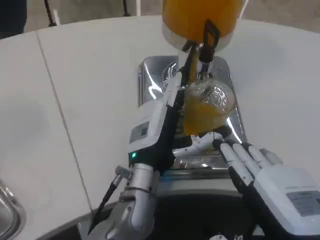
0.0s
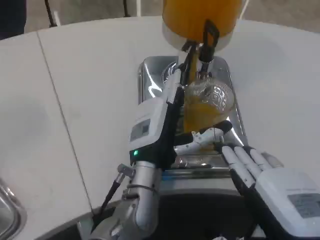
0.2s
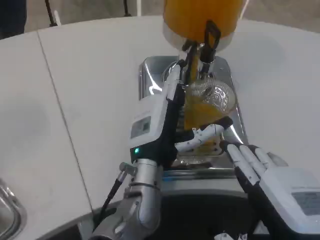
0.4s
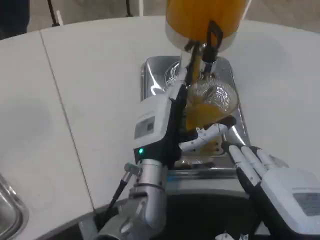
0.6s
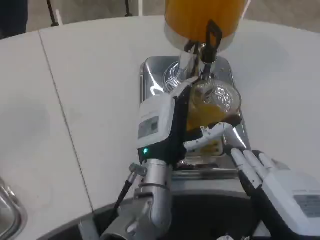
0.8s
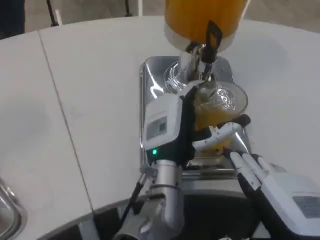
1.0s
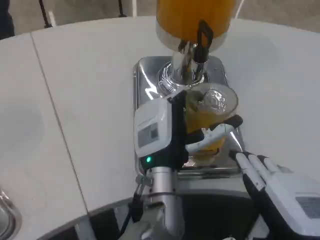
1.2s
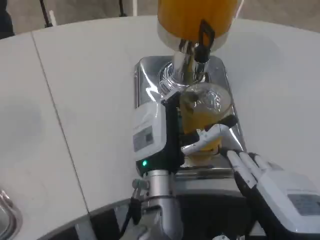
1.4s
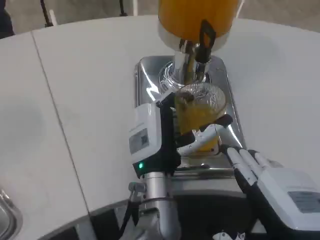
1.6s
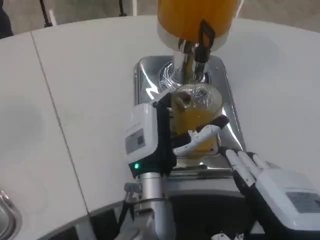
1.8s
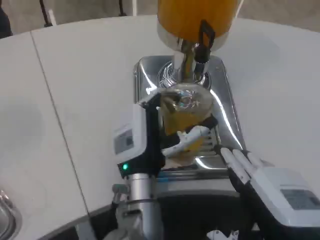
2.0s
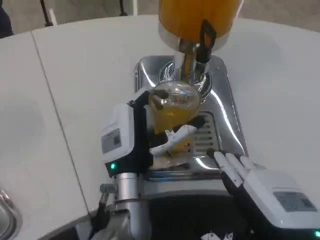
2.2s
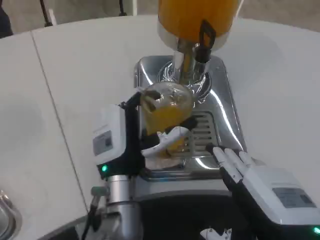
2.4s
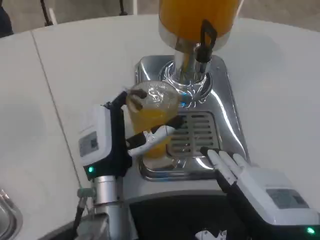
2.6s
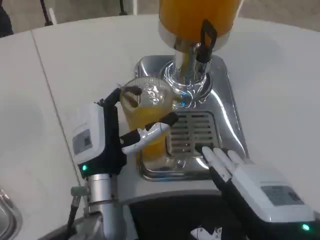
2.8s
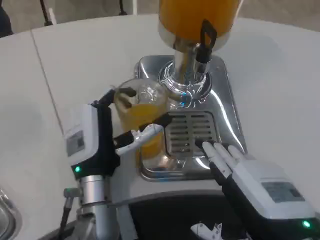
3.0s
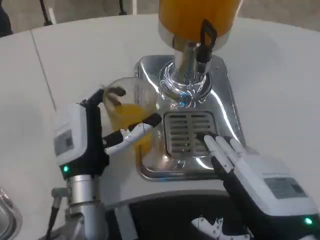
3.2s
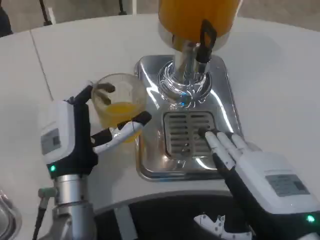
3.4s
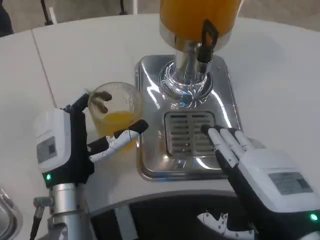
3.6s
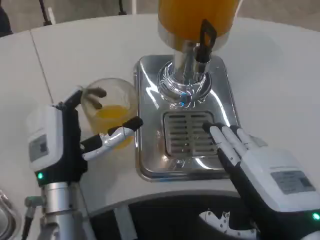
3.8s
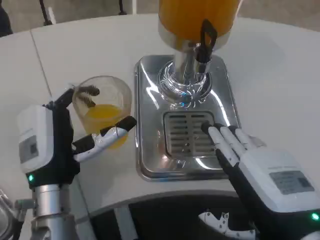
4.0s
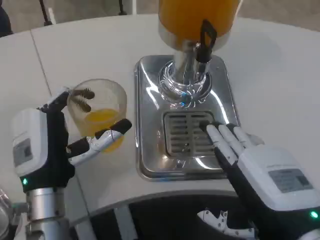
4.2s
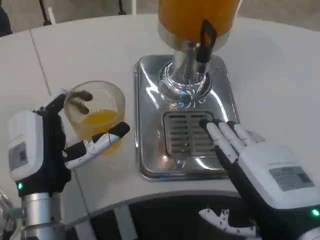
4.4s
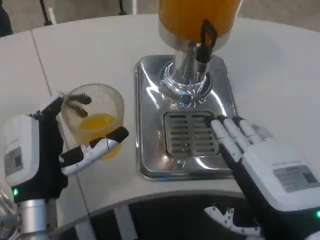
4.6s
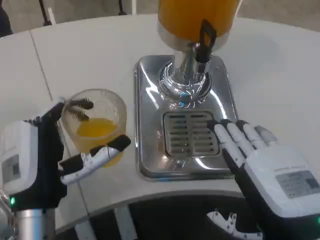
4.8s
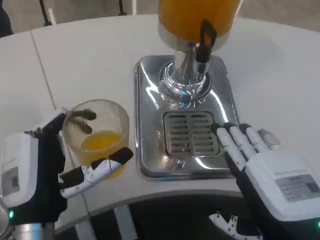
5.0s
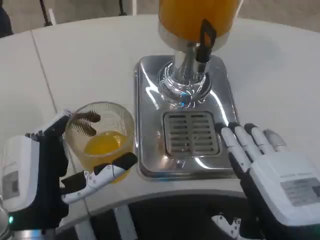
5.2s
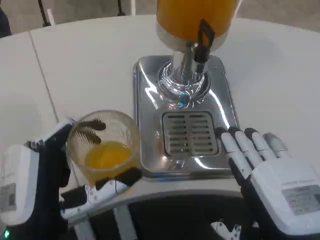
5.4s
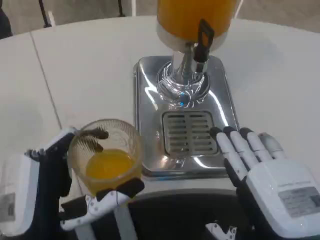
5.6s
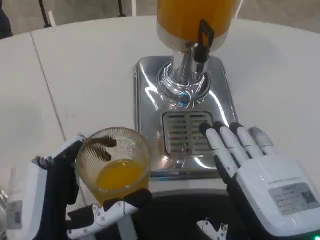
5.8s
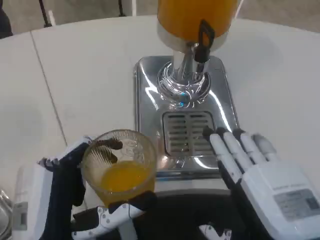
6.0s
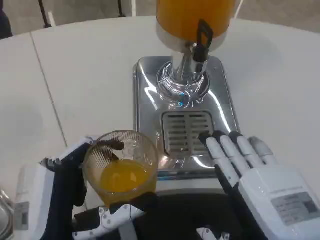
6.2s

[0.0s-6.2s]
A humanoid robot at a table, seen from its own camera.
Task of the whole recording: Grasp the cup under the faucet to collect the drink, then remove the cup.
0.0s to 1.6s: The hands stay close to where they were, moving slightly.
1.6s to 3.2s: The left hand shifts roughly 10 cm to the left.
3.2s to 4.6s: The left hand shifts about 5 cm backward.
4.6s to 6.2s: The left hand moves backward, some 10 cm.

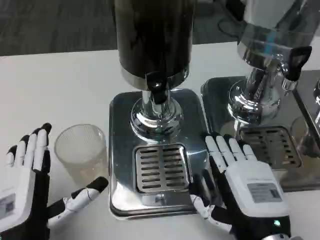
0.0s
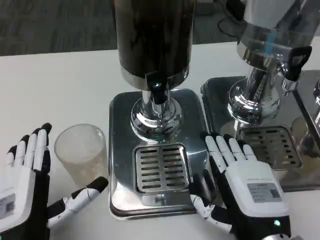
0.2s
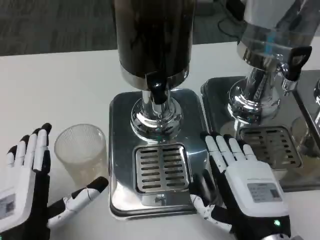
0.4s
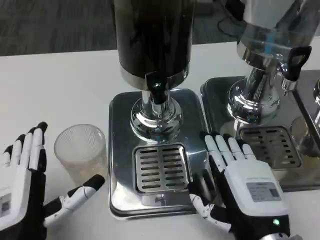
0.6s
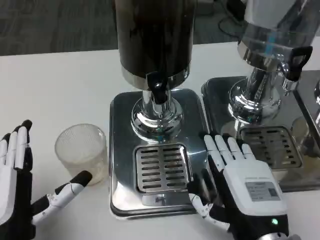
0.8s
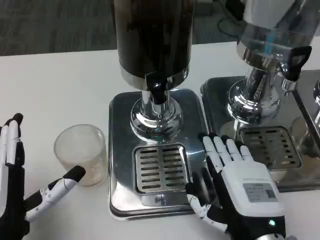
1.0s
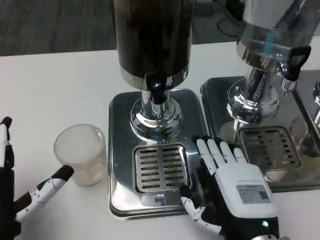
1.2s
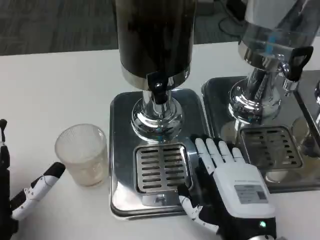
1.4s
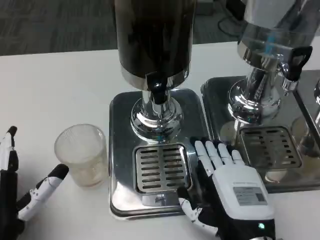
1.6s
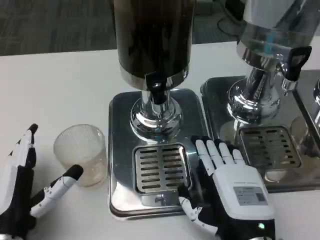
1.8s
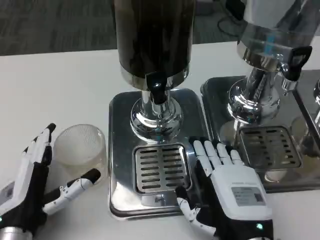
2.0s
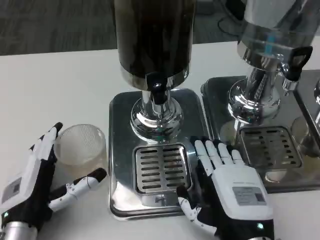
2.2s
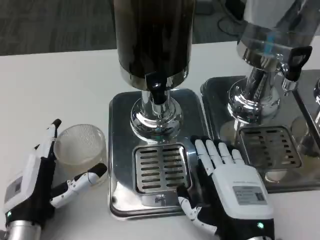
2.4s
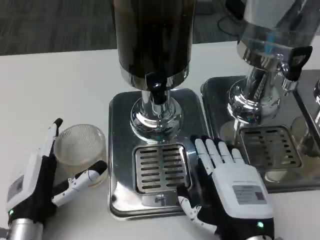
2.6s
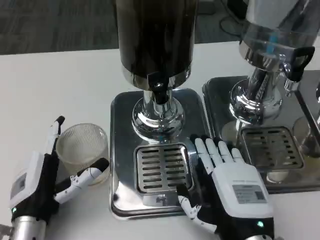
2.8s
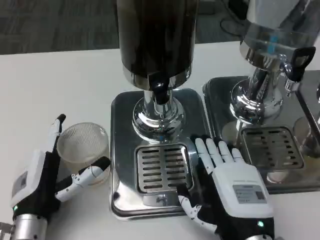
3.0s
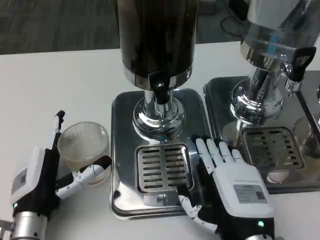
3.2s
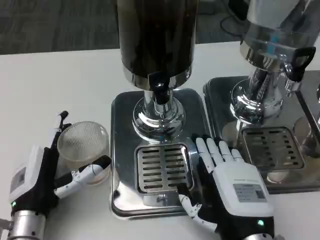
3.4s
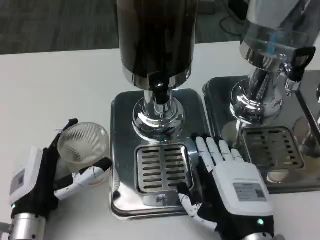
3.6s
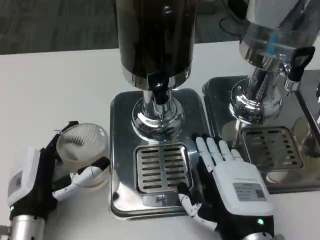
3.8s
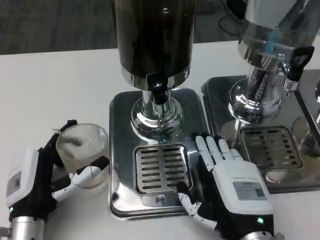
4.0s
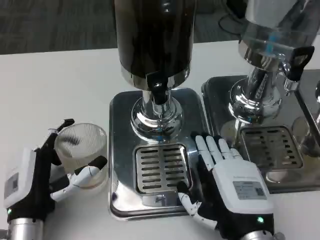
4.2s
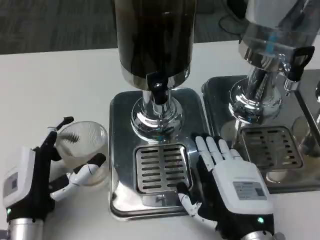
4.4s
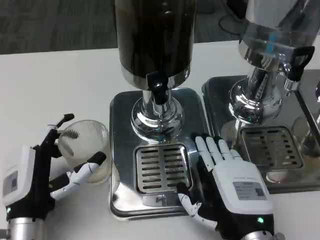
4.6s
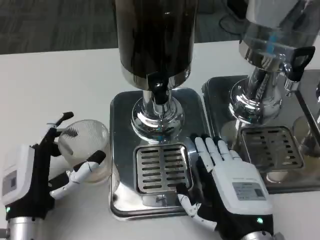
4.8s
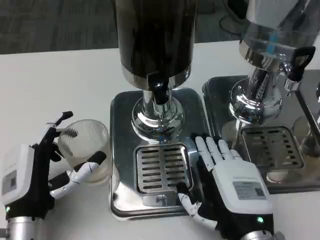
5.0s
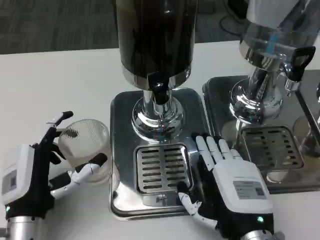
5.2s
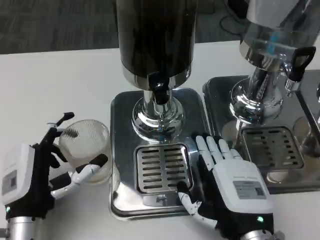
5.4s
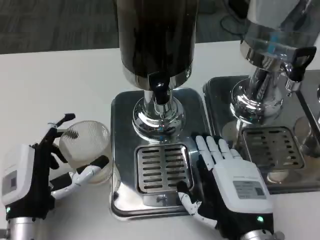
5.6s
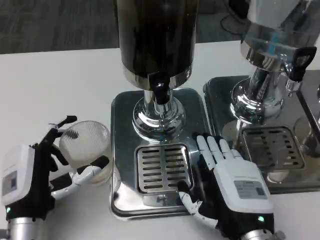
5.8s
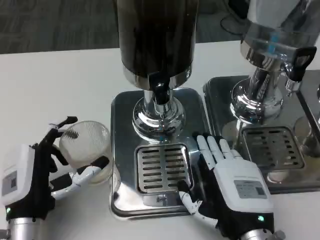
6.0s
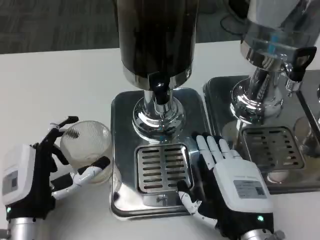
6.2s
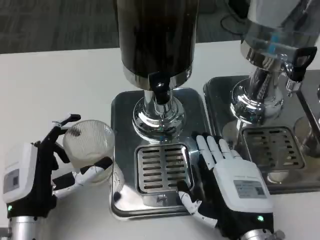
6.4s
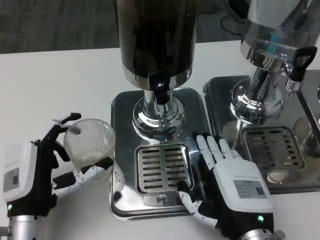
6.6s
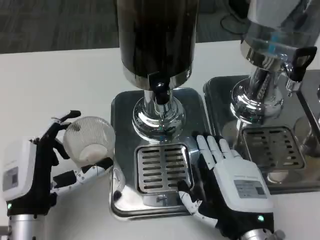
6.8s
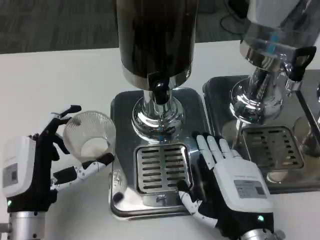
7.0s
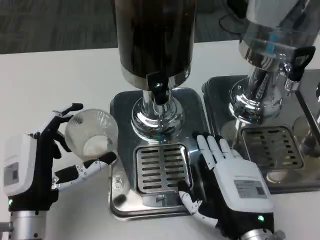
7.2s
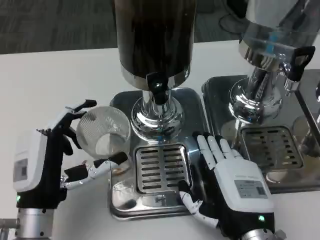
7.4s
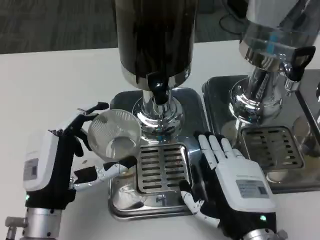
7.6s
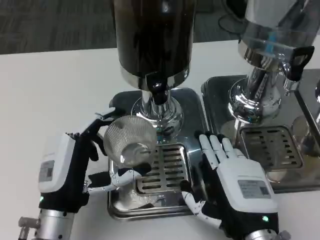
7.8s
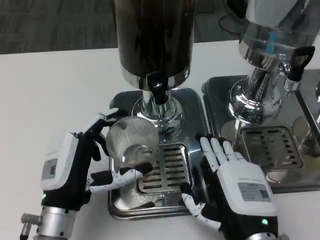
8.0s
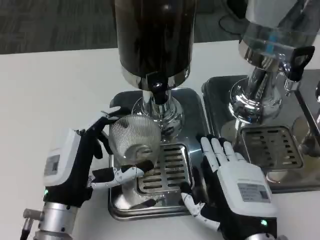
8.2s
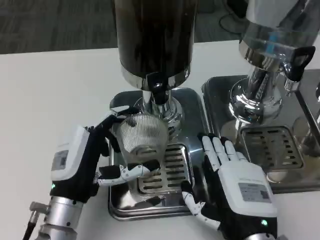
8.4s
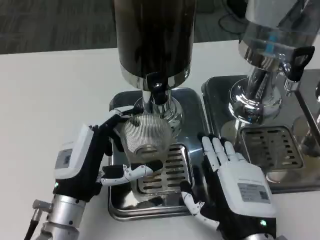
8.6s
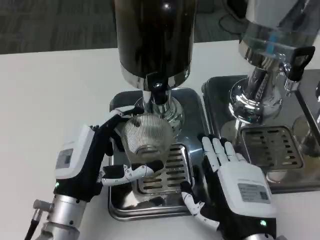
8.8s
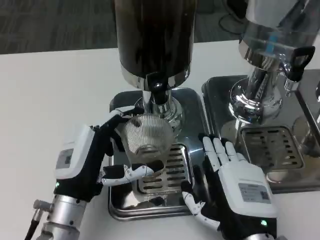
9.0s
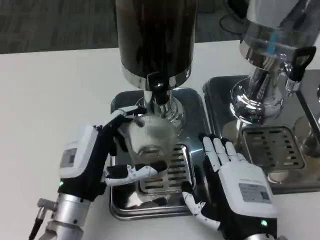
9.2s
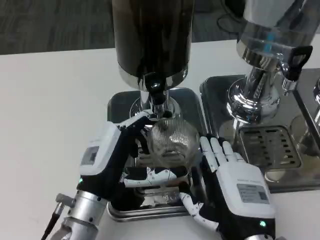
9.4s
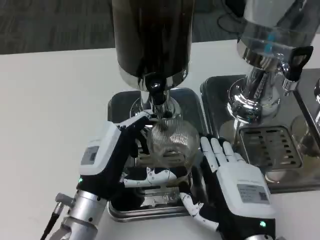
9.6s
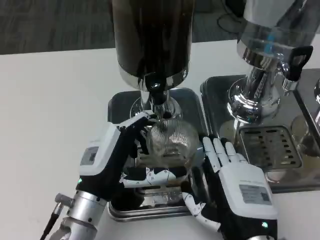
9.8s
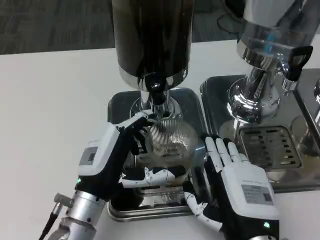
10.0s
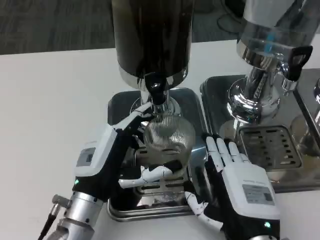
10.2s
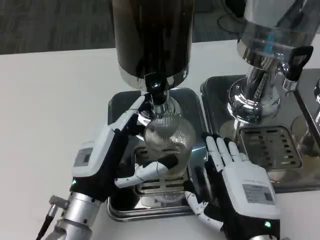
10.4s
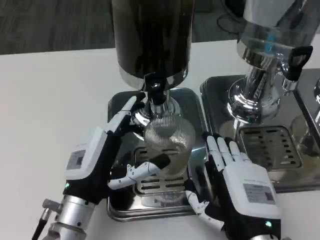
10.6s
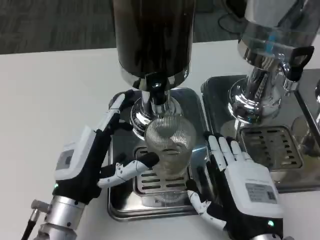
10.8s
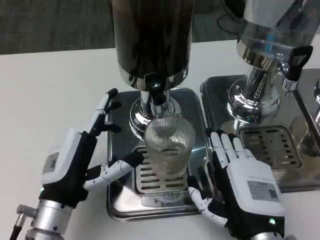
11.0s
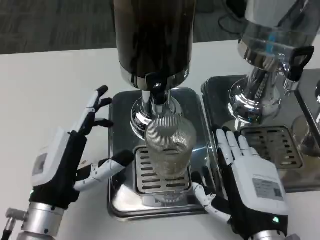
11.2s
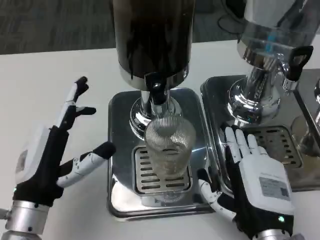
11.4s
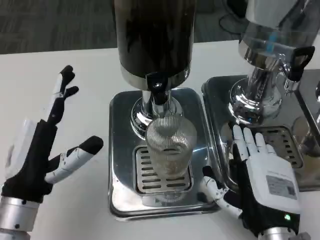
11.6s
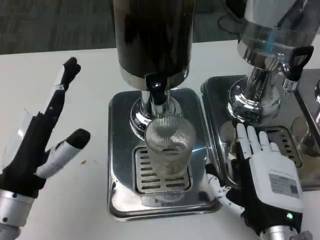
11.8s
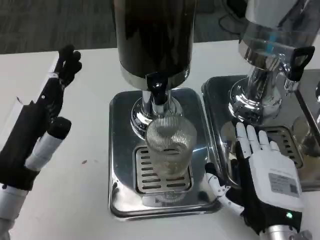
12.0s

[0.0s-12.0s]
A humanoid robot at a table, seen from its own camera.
Task of the whole recording: Grasp the cup under the faucet to collect the drink, then remove the cup.
0.0s to 1.6s: The left hand moves about 5 cm.
3.0s to 4.4s: The hands make only small movements.
4.4s to 6.0s: Both hands stay about where they are.
7.6s to 9.0s: The hands make only small movements.
10.4s to 12.0s: The left hand is displaced to the left and upward by roughly 10 cm.

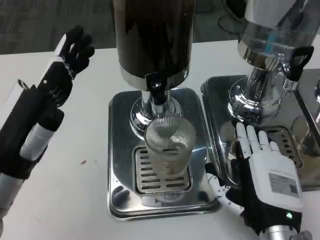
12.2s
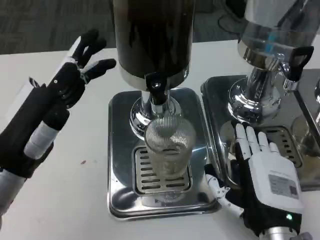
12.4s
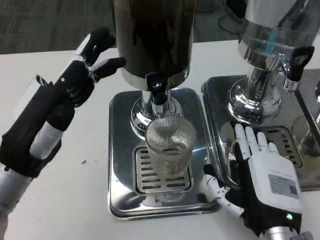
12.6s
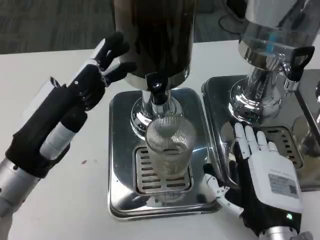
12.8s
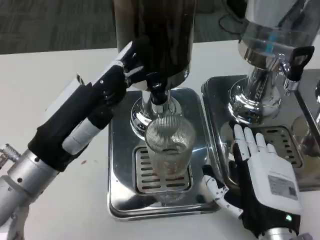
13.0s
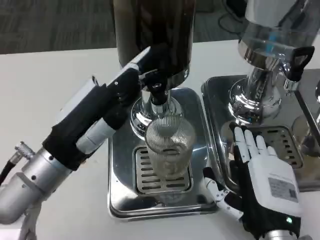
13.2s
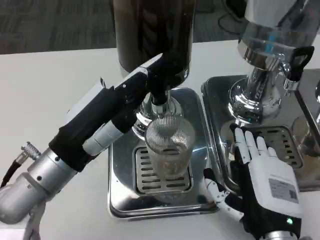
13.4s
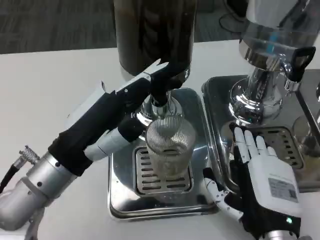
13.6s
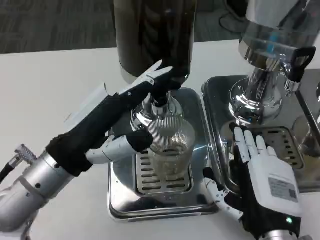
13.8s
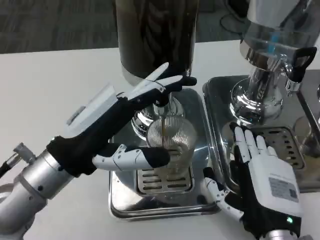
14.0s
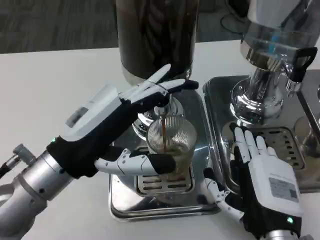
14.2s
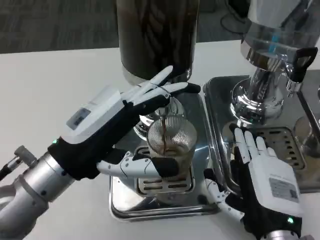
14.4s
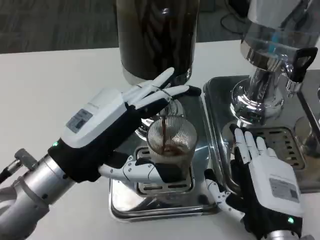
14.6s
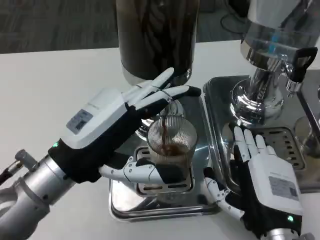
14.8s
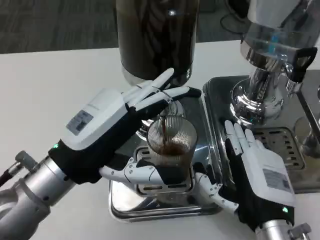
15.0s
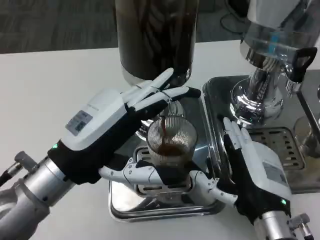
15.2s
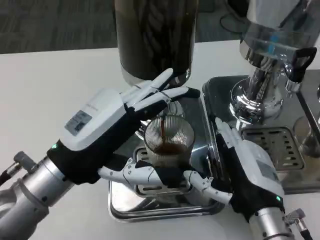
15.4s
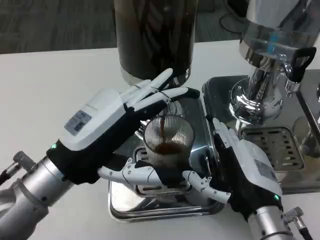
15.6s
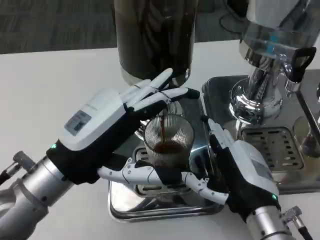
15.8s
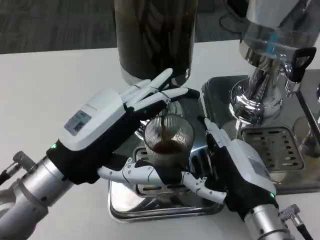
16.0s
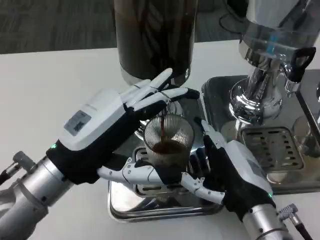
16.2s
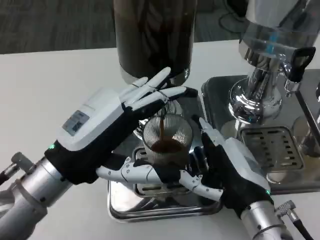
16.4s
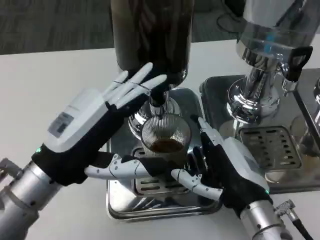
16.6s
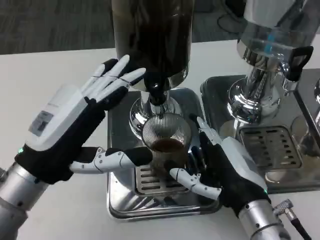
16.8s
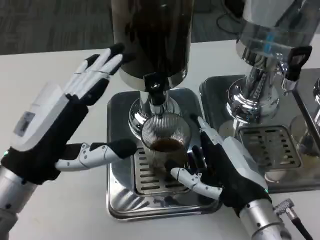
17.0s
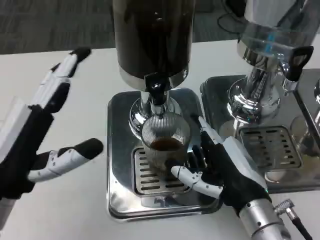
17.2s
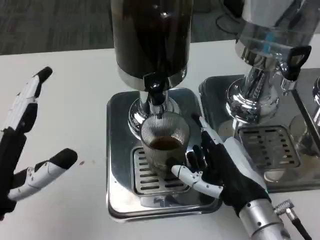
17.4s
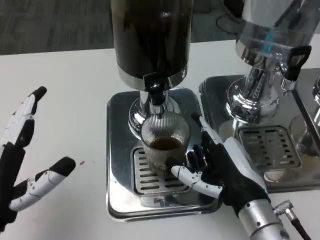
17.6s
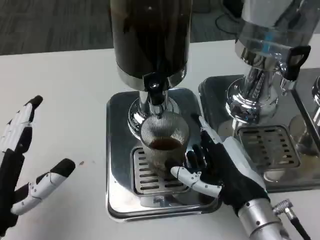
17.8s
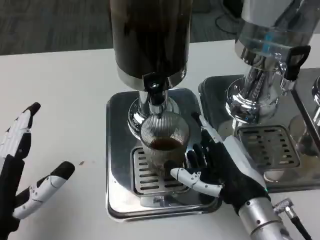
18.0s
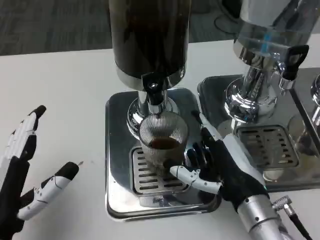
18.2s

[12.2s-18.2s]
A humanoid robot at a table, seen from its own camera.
Task of the whole recording: Grasp the cup under the faucet to collect the drink, then remove the cup.
12.2s to 13.8s: The left hand moves some 5 cm.
16.6s to 18.2s: The left hand moves downward and backward, roughly 10 cm.
